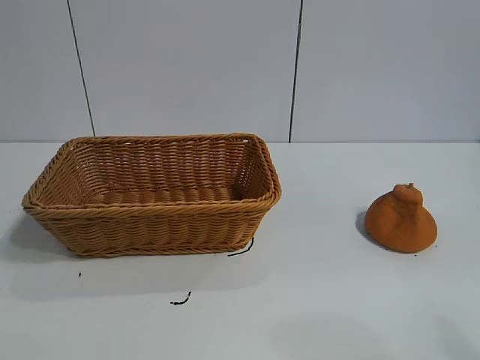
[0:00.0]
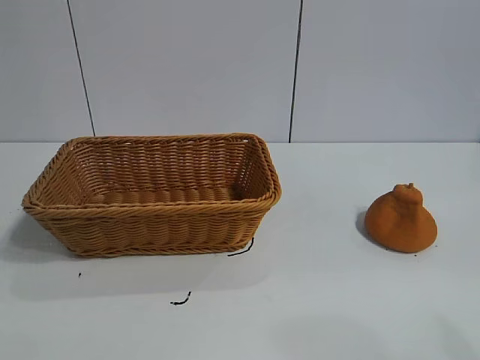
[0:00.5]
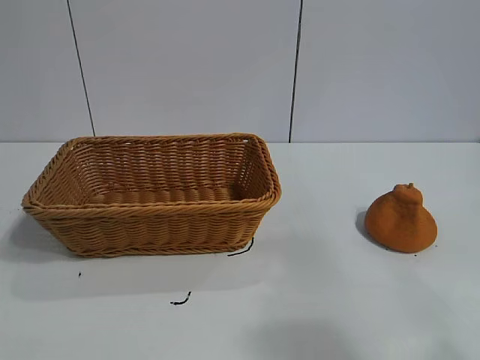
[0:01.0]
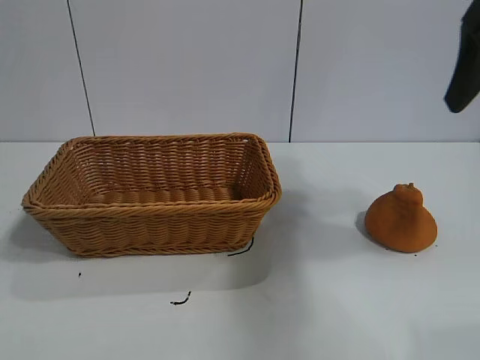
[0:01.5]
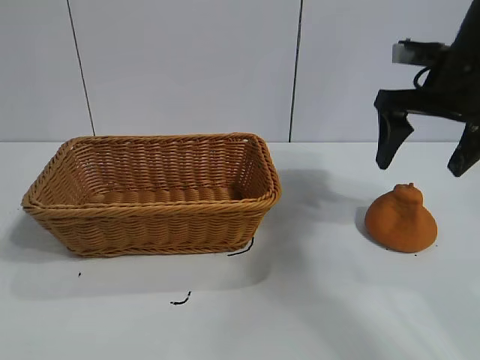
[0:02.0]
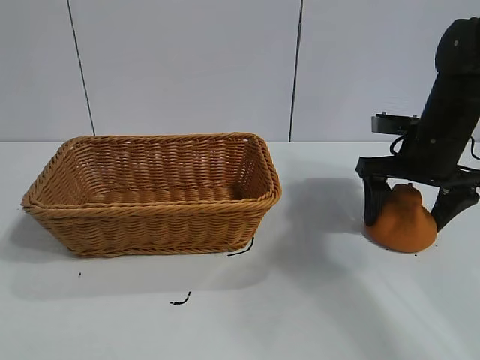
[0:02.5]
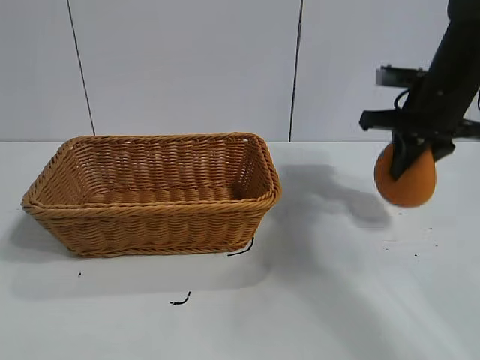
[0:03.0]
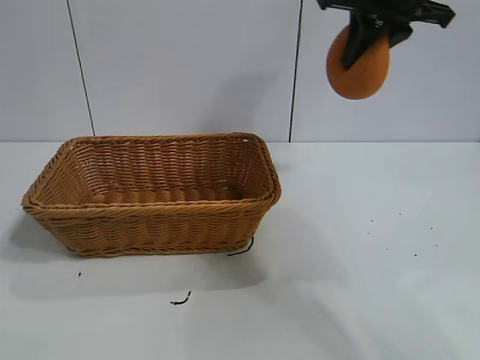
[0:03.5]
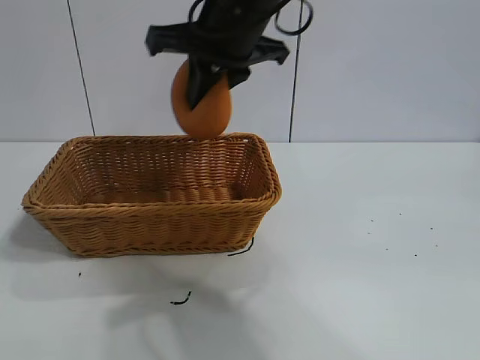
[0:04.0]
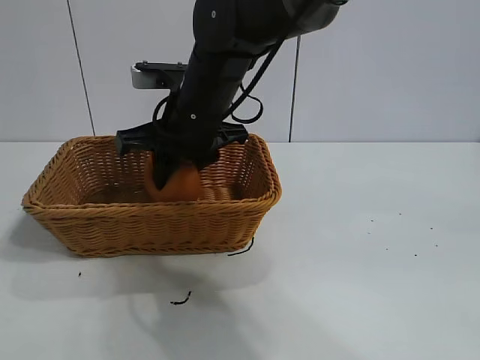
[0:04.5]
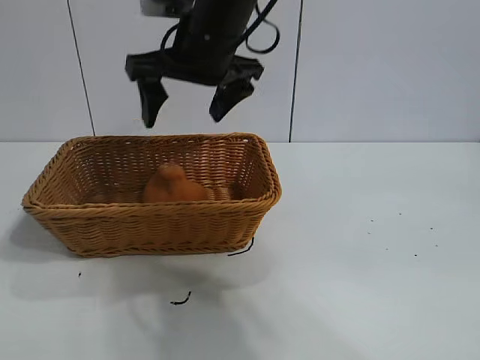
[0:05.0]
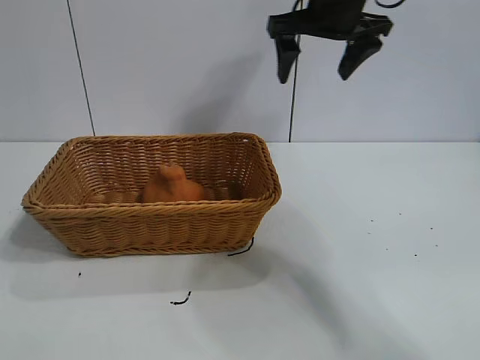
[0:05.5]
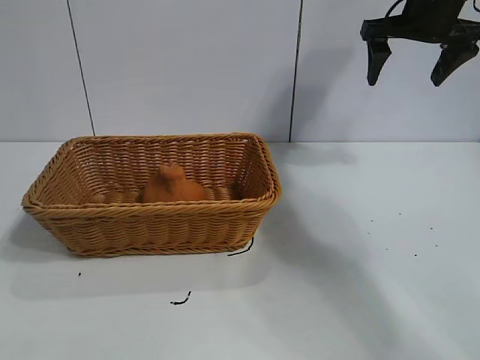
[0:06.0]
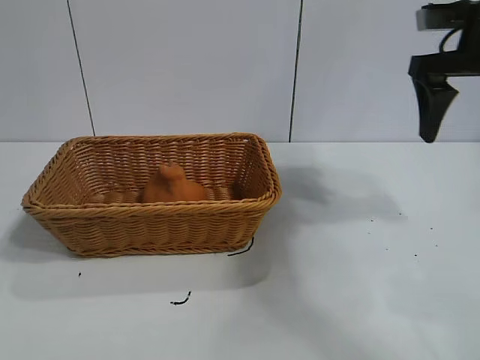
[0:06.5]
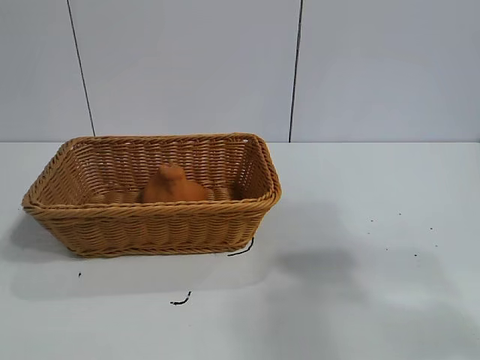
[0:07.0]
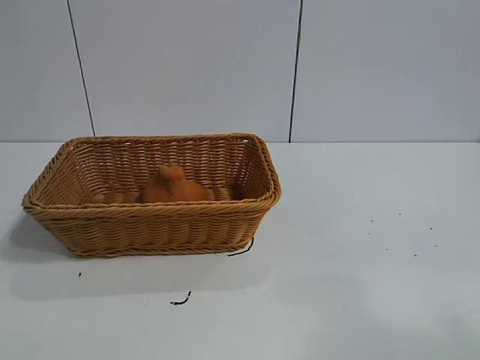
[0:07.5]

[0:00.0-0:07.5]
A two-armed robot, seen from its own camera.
Task of the whole recording: pick up the orange and put it into the basket.
Step, 0:01.0 to 0:02.5: Grasp the orange with right gripper.
Step, 0:03.0 to 0:04.5: Place the orange in the basket with right gripper.
